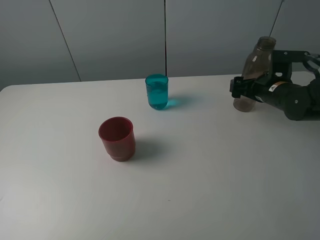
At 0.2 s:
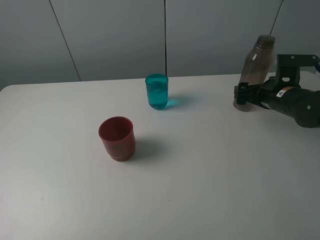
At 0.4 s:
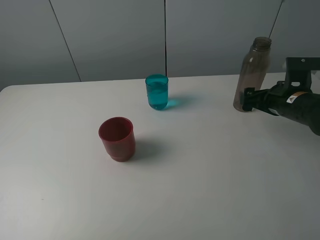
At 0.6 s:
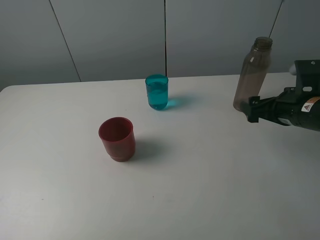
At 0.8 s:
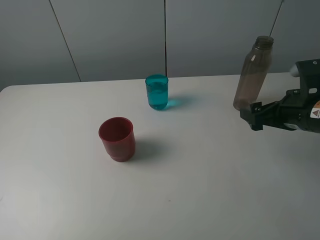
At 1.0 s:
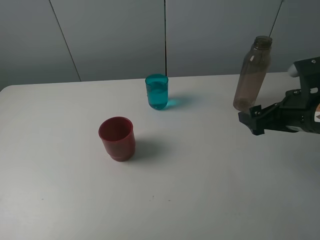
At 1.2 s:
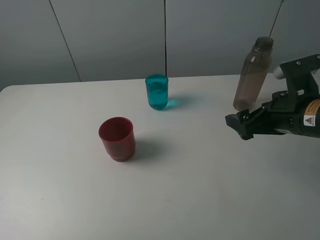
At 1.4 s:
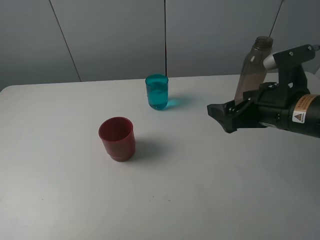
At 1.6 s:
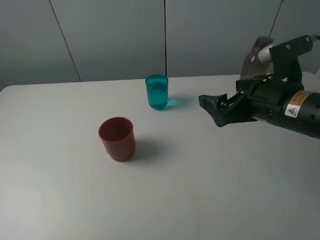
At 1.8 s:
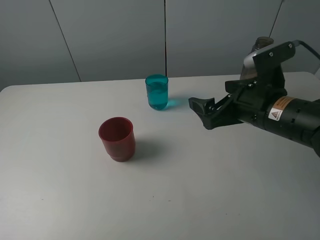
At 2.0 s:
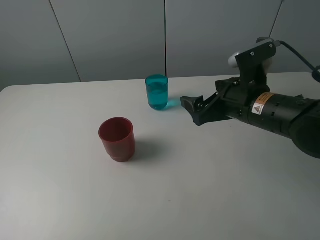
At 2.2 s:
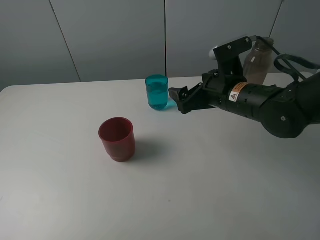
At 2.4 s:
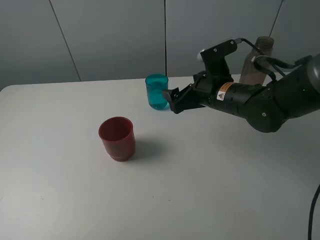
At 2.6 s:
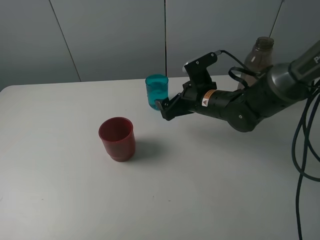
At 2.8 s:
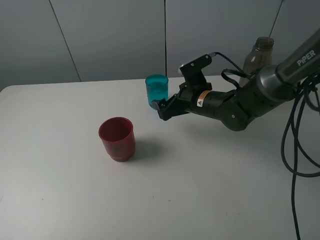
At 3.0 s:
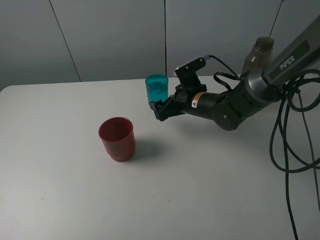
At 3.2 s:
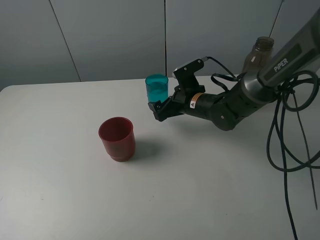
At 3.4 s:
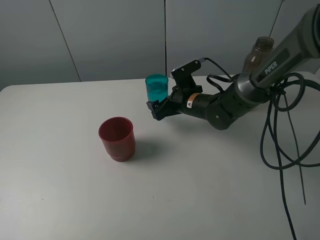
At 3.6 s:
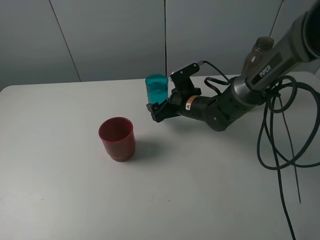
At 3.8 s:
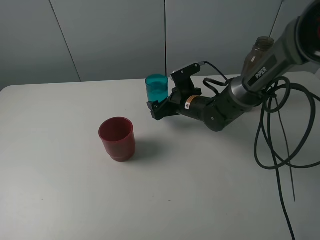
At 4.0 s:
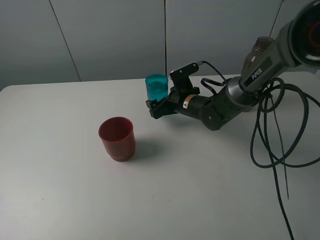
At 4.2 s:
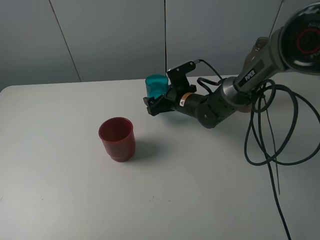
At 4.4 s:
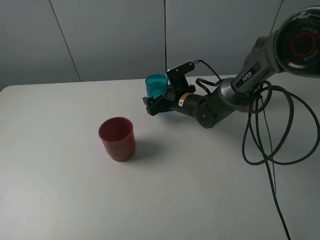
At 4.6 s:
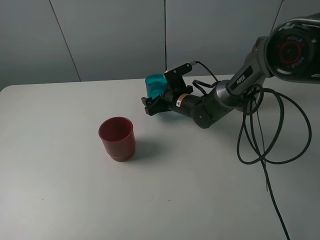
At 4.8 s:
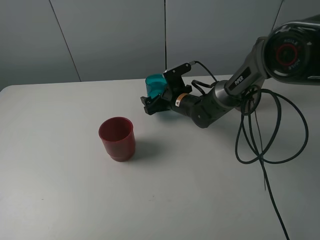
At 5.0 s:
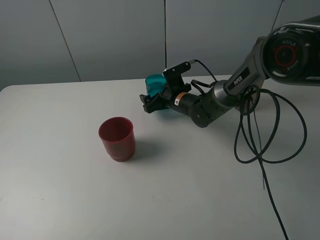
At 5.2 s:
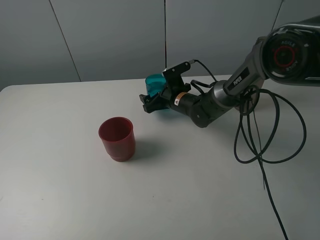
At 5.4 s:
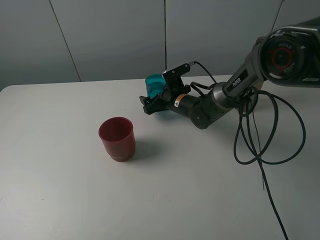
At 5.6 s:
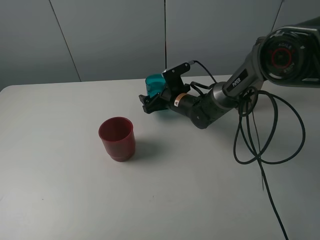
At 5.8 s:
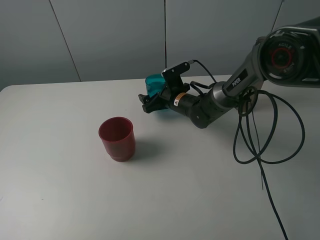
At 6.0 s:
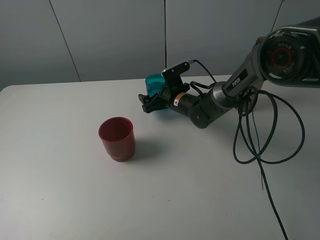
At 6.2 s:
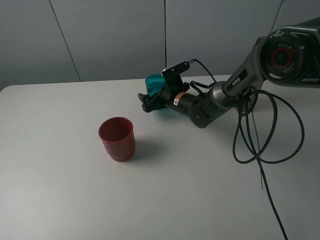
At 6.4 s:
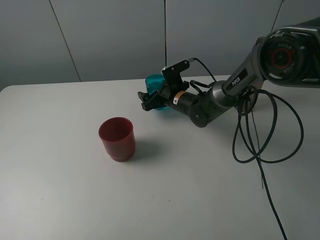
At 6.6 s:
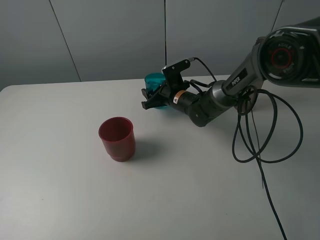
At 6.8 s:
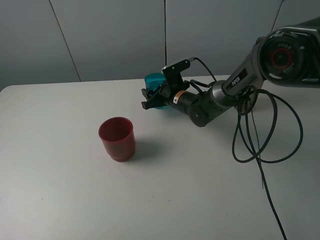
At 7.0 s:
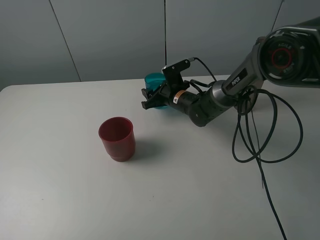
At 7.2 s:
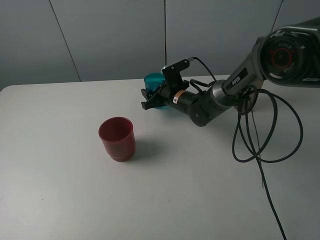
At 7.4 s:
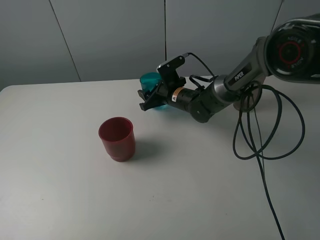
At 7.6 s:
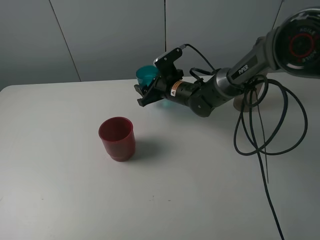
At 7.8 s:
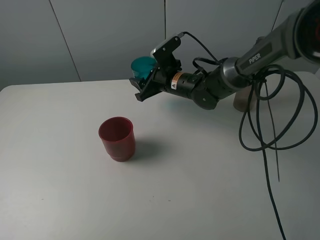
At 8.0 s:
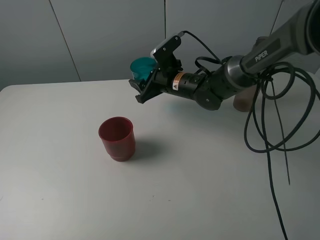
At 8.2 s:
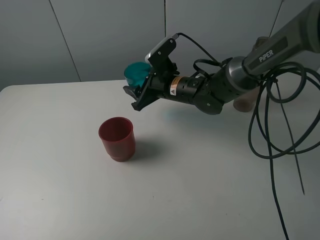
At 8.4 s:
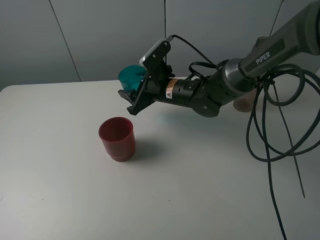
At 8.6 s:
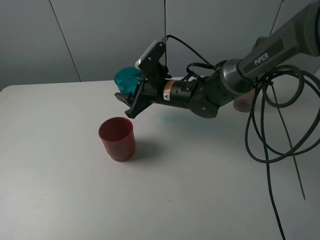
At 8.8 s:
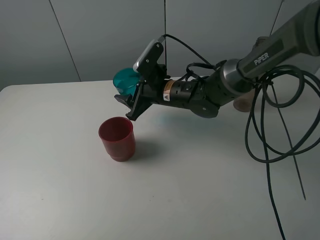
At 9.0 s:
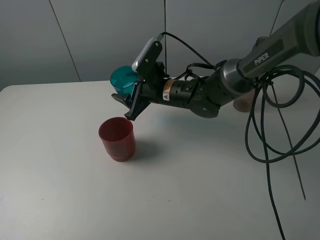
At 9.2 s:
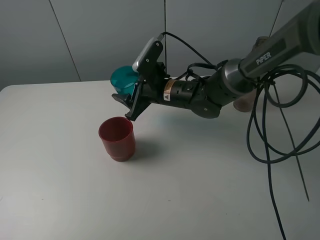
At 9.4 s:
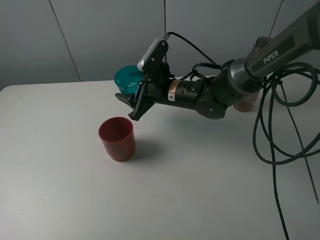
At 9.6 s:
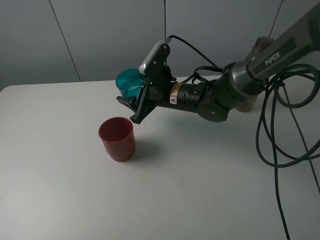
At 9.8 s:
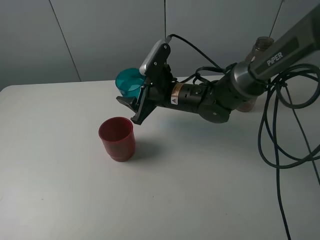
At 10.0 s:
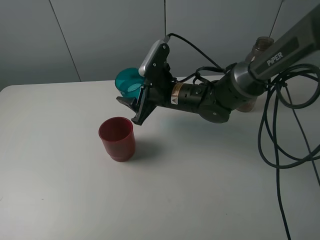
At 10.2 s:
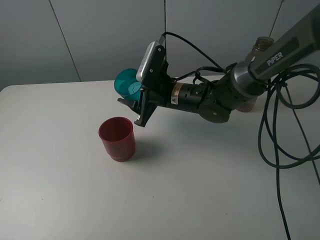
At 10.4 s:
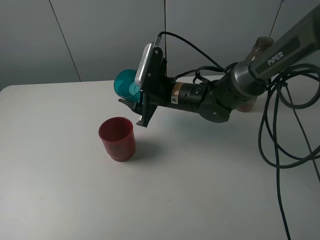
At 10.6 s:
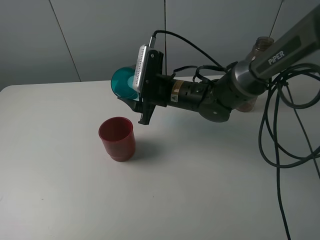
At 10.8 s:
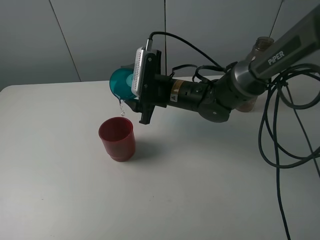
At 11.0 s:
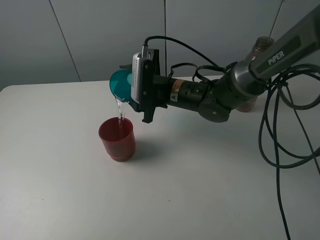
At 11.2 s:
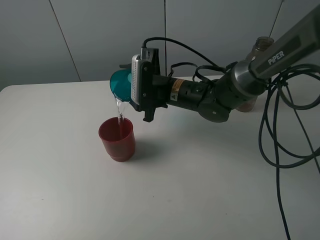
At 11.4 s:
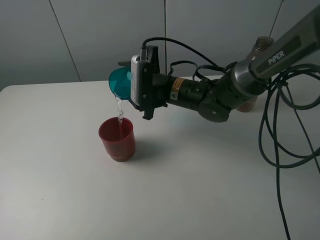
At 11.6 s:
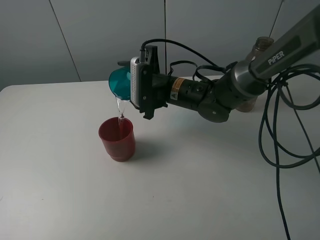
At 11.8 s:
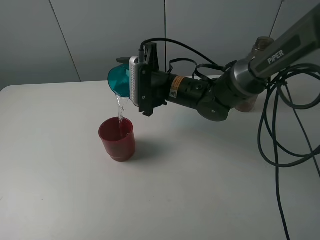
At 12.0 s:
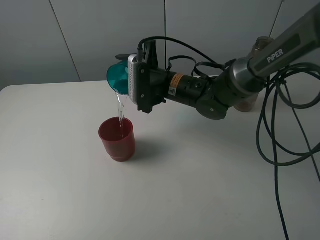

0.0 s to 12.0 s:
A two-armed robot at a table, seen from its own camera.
Task of the whole recording: pick up the bottle and pour water into the cup, then pick up the cup containing water and pour it into another cup.
Step, 0.0 to 6.8 s: Grasp the blue cup with the right gripper.
0.0 to 1.6 s: The right gripper shifts some 15 cm backward, upward and to the left.
1.6 to 3.0 s: The right gripper travels forward, downward and to the left by roughly 20 cm.
3.0 to 4.4 s: The right gripper changes place by approximately 5 cm.
4.4 to 6.0 s: The grippers move only a little.
6.0 to 7.6 s: The right gripper closes up.
7.6 to 9.0 s: The right gripper is displaced backward by roughly 5 cm.

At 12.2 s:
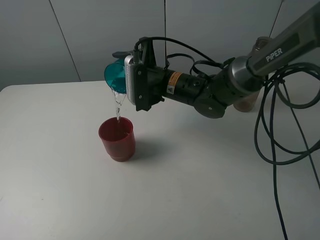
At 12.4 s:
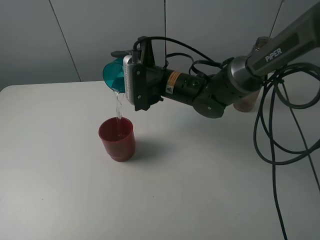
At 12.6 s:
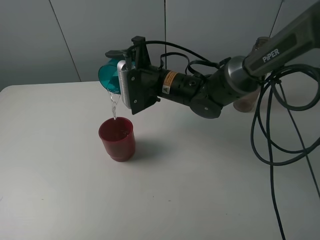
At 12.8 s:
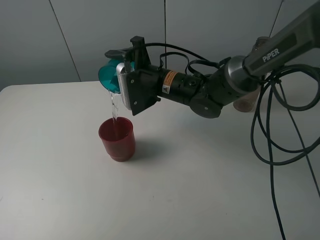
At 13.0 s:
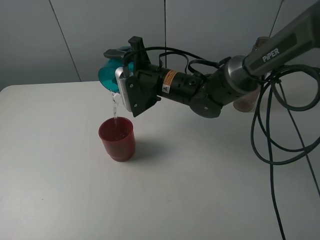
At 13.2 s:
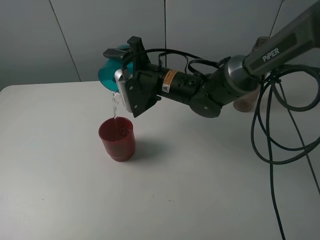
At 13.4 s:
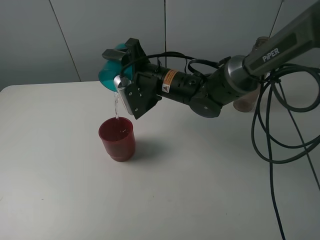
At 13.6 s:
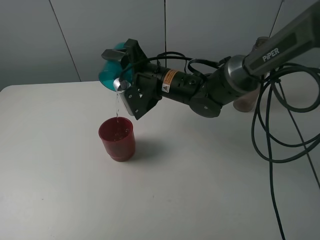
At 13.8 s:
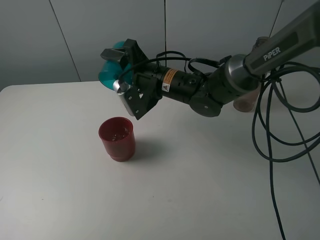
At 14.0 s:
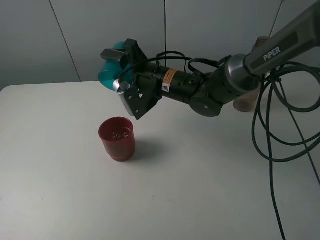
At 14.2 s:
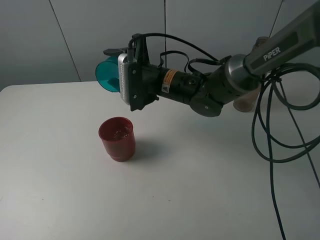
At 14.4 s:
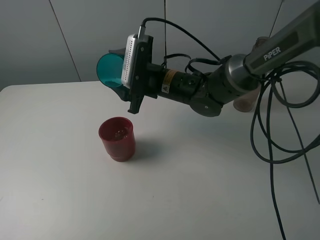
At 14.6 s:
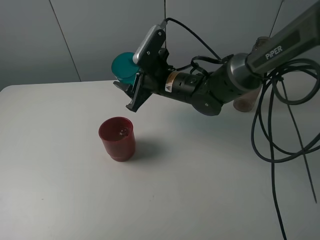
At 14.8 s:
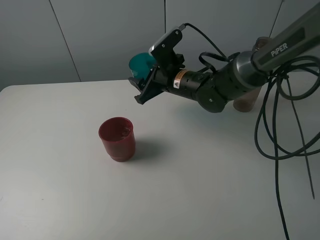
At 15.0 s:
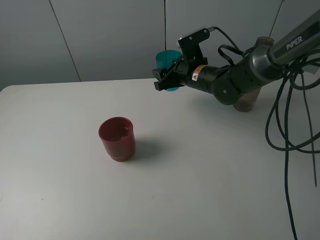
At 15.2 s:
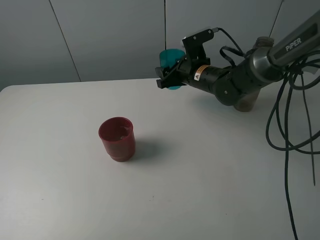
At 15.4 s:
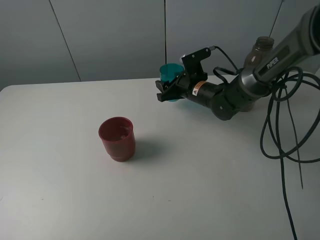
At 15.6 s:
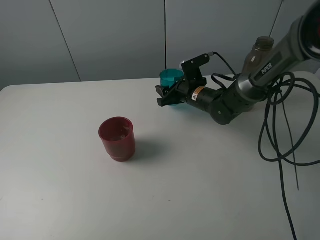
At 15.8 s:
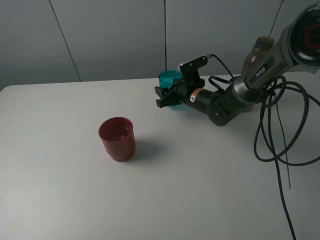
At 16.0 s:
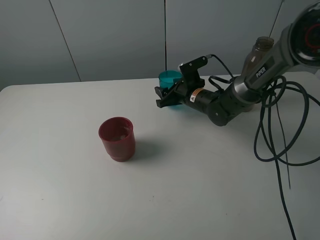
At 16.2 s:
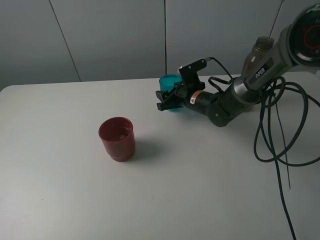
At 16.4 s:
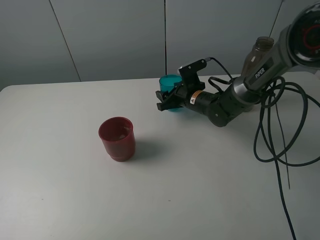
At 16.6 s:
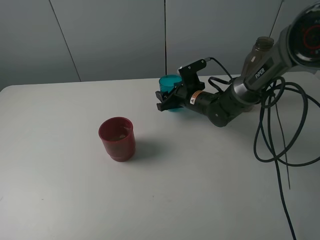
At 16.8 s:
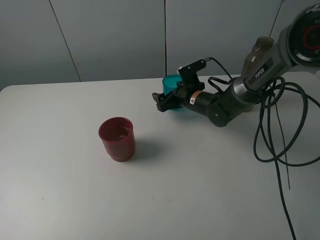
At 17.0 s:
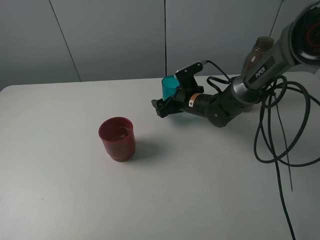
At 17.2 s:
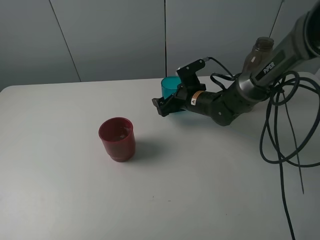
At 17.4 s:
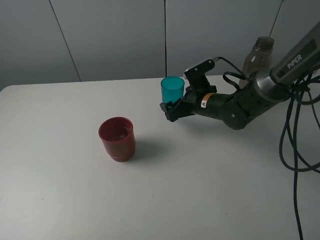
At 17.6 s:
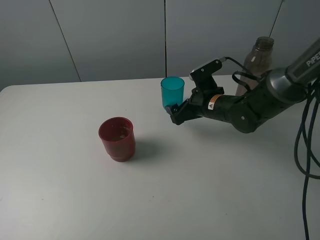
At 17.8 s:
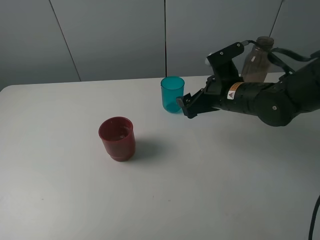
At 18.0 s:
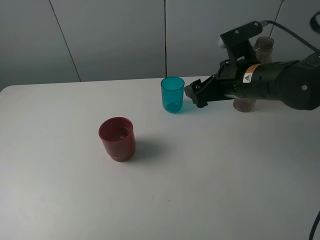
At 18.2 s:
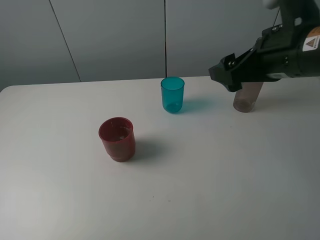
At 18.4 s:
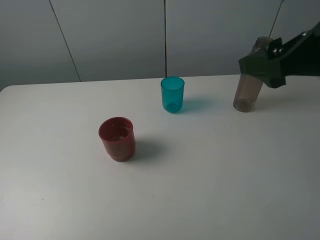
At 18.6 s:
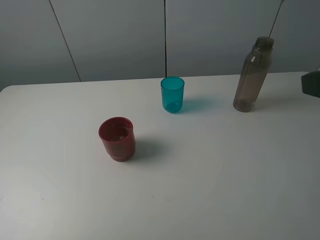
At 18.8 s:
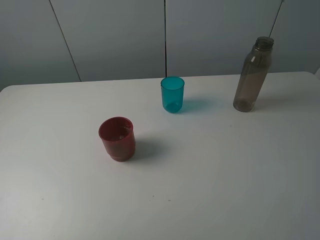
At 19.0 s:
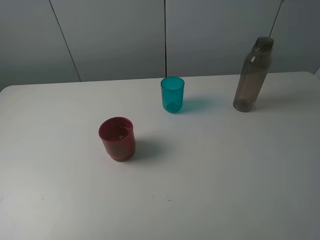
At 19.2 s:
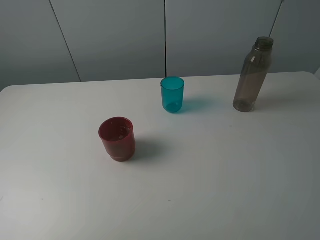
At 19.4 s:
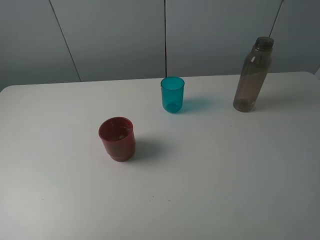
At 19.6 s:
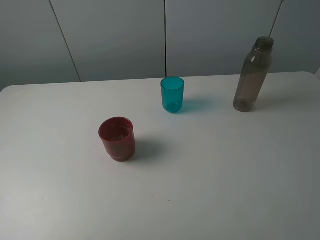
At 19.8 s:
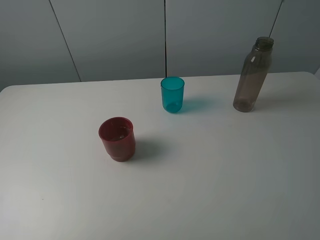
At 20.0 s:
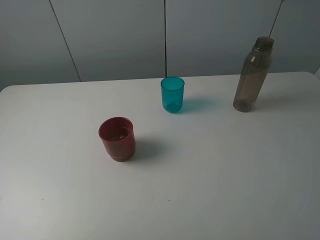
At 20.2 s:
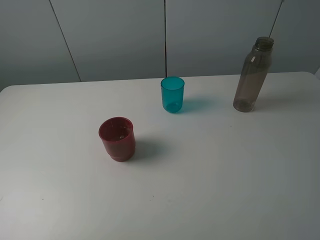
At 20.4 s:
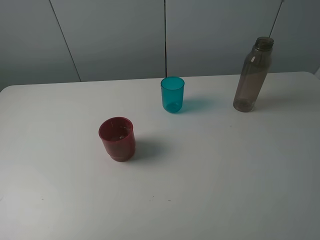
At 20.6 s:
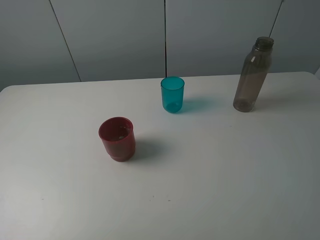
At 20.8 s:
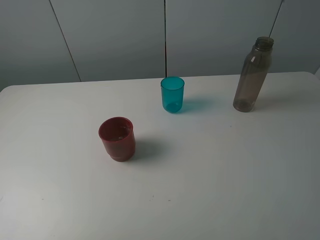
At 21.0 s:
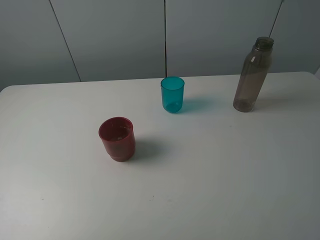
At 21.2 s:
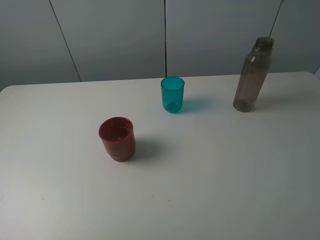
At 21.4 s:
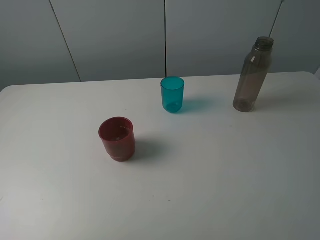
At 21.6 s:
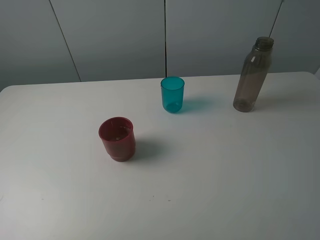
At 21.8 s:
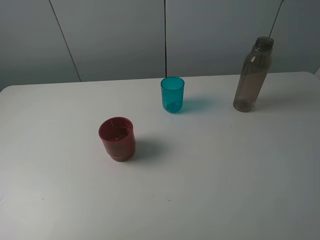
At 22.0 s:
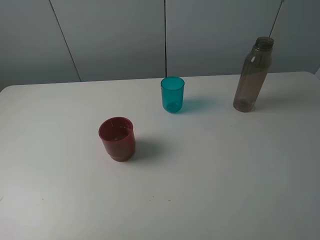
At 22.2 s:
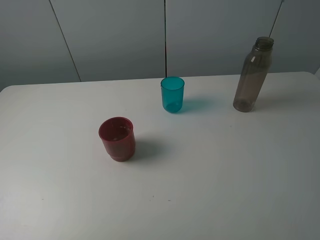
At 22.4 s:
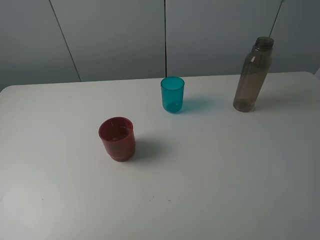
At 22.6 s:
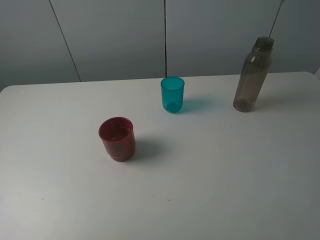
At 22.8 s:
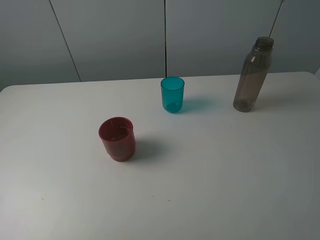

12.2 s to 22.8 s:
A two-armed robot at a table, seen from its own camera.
Task of the whole recording: pick up the bottle and pour water into the cup, then pick up the cup containing water and pour it into another cup.
Step, 14.0 to 16.8 s: Place the blue cup with the right gripper.
13.8 to 15.2 s: The right gripper heads to the right and forward, covering roughly 10 cm.
15.2 to 16.8 s: The right gripper shifts roughly 5 cm downward, and opens its fingers.
16.8 to 18.2 s: The right gripper moves upward, backward and to the right, roughly 30 cm.
18.2 to 19.8 s: The right gripper is displaced backward and to the right by approximately 25 cm.
21.2 to 22.8 s: Both grippers stay put.
